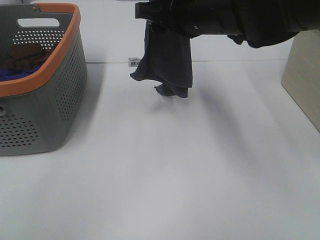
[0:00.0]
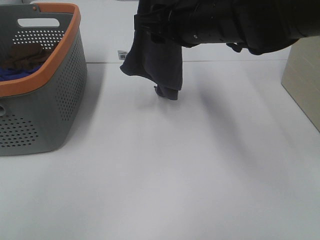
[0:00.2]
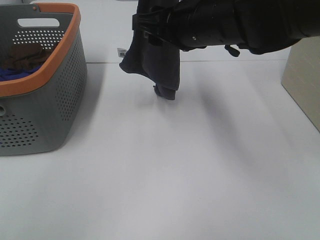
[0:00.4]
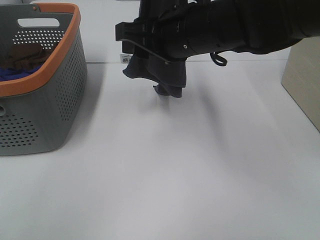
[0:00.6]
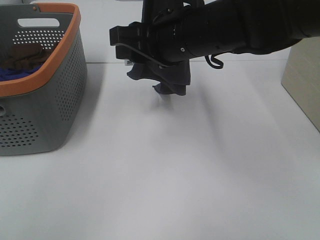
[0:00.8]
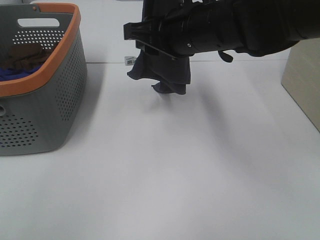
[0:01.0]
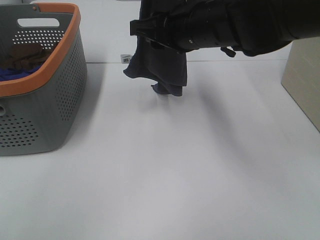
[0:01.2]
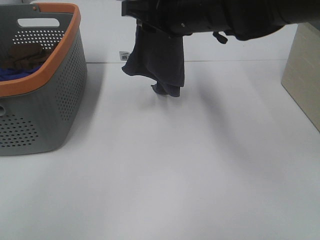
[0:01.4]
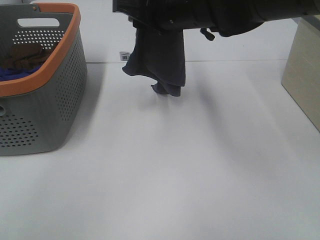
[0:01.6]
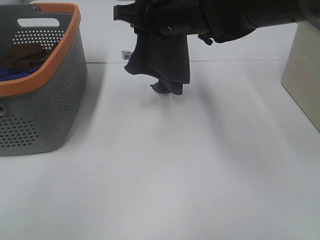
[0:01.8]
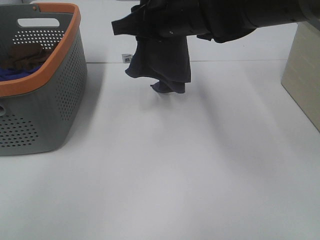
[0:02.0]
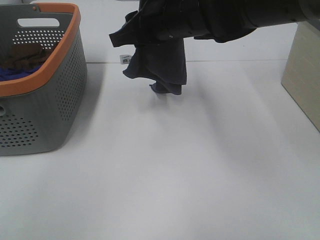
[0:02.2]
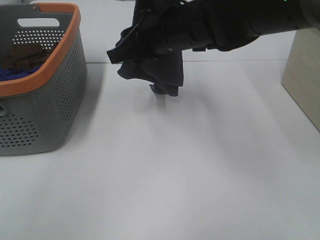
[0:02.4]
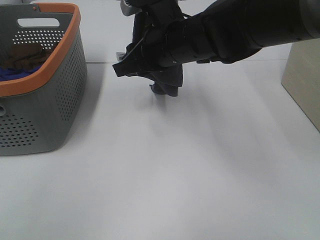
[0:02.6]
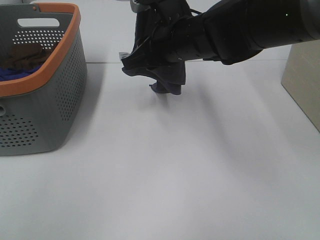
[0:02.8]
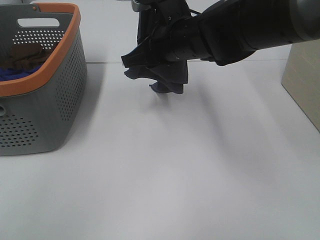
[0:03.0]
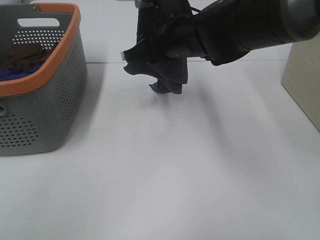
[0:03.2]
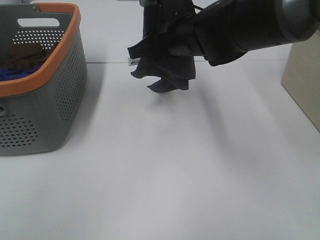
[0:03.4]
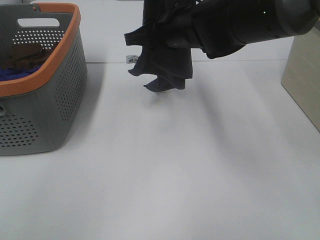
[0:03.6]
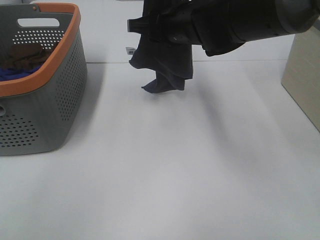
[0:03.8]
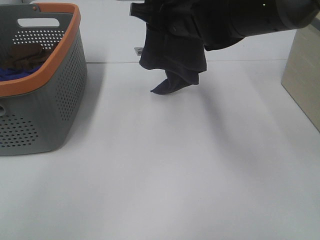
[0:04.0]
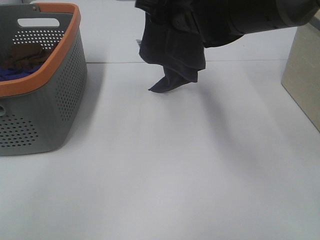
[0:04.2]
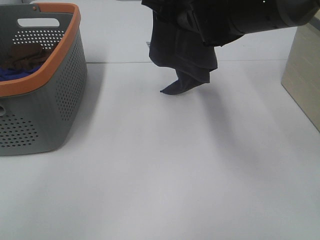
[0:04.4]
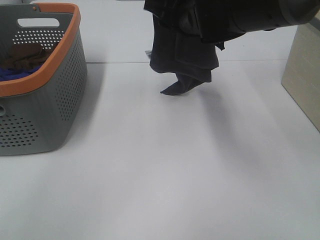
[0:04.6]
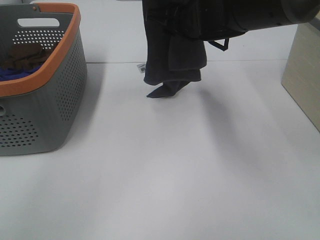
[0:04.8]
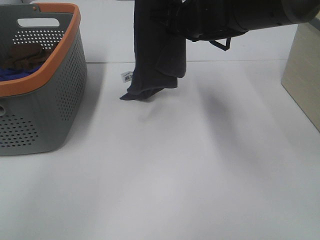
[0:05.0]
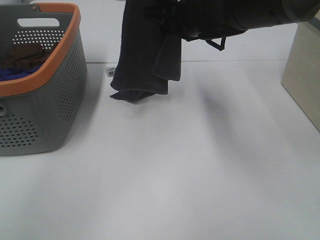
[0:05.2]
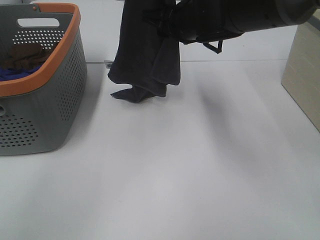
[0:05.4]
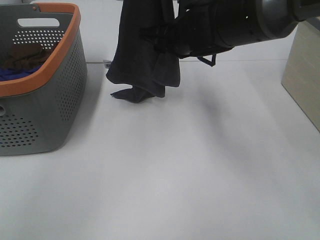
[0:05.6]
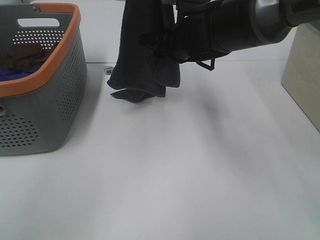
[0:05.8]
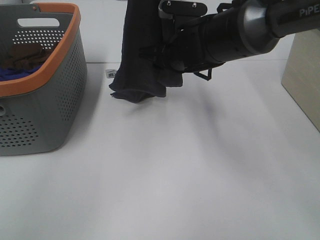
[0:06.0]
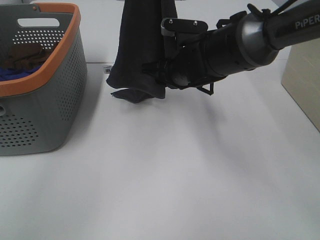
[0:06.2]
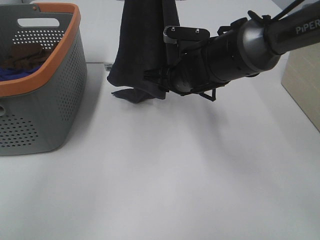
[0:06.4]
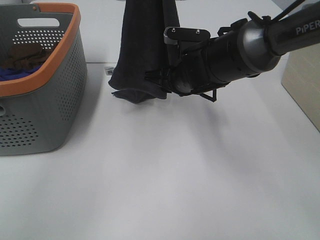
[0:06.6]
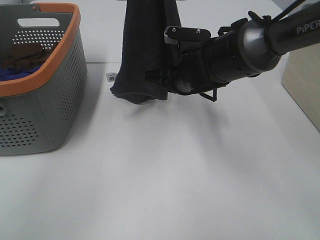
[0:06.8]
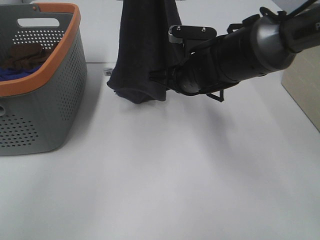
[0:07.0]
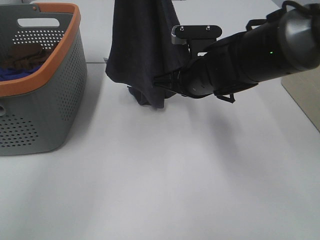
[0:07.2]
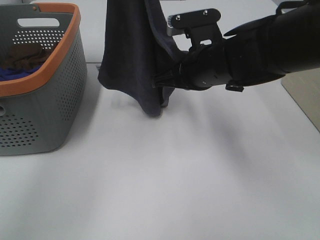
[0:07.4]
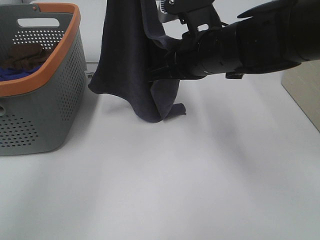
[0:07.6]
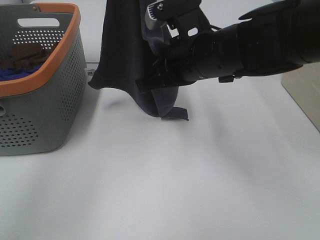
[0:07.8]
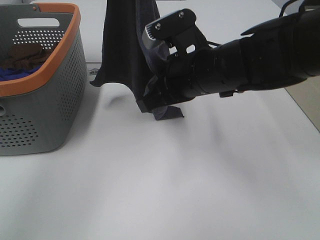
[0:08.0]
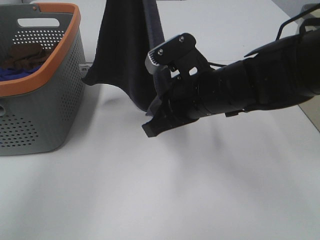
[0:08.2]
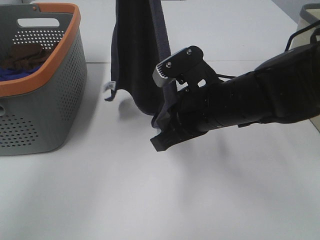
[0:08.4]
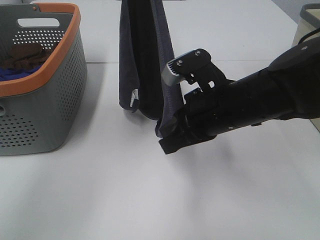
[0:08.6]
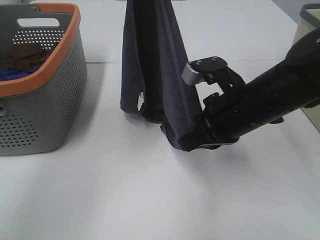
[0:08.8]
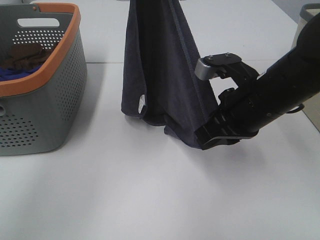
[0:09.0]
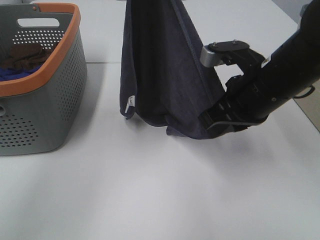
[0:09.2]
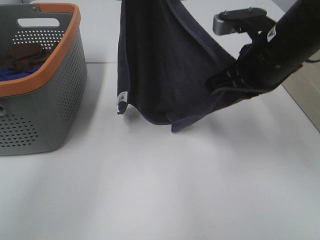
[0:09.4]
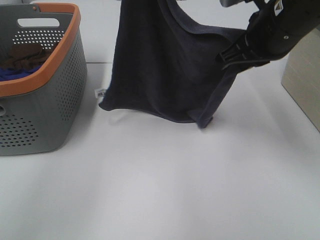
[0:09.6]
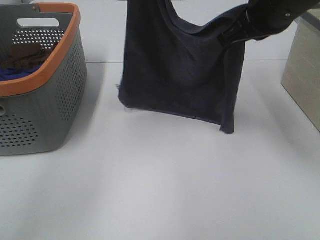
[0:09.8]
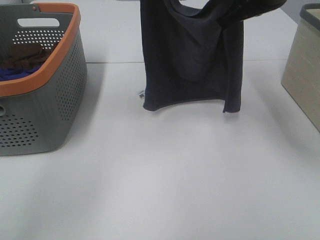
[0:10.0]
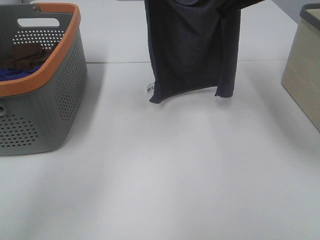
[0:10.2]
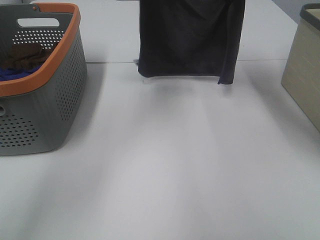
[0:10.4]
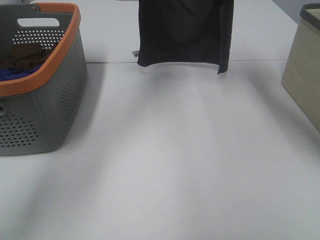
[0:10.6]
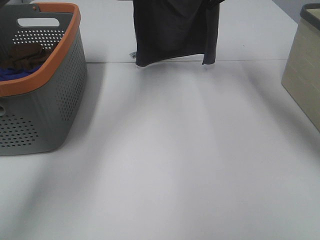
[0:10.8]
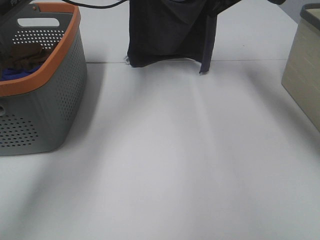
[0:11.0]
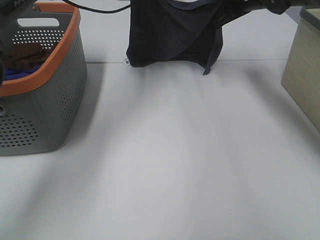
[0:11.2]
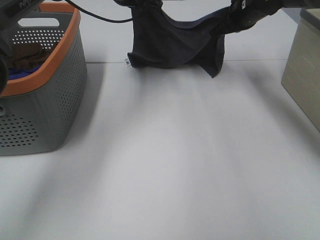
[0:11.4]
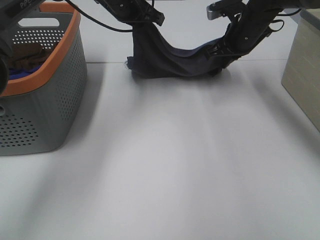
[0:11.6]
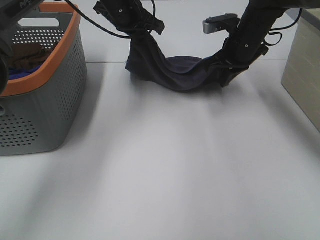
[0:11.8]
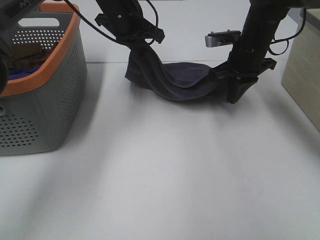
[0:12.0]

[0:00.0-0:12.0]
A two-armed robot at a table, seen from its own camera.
Task of the whole recording: Remove the towel and place it.
Step, 0.0 to 6.0 s: Right hand: grab a corner of the grey towel and straighten it.
Step, 6.2 to 8.0 s: Right hand: spread the grey towel flat on the table.
Step, 6.2 to 8.8 s: Left hand: spread the grey towel flat on the table.
4.4 to 6.0 s: The right gripper shifts approximately 5 cm downward.
6.0 to 7.6 s: The right gripper is displaced backward by about 10 cm, and closes.
7.6 to 9.0 s: The right gripper moves to the right and backward, approximately 10 cm.
9.0 to 10.4 s: The right gripper heads forward and upward, covering some 20 cm. Meanwhile the left gripper goes about 10 cm forward and downward.
10.4 to 12.0 s: Both grippers travel together downward, approximately 15 cm.

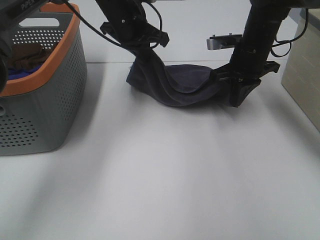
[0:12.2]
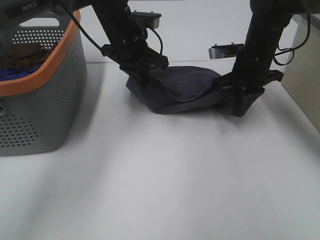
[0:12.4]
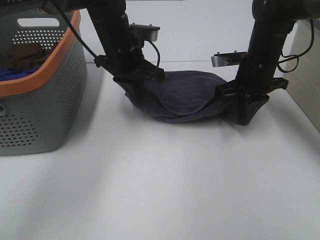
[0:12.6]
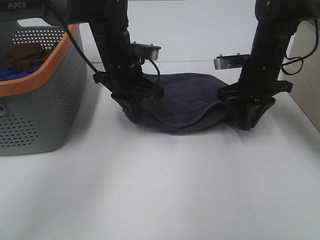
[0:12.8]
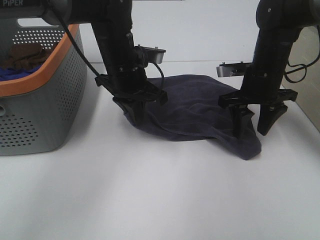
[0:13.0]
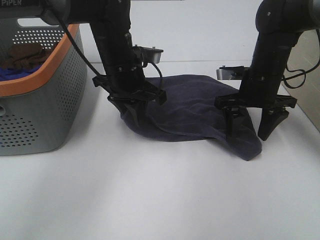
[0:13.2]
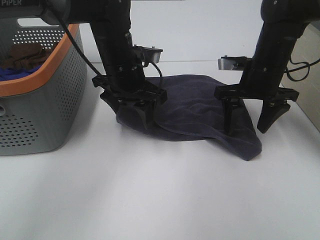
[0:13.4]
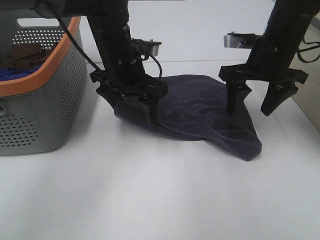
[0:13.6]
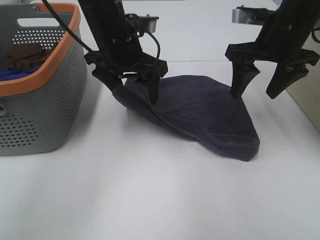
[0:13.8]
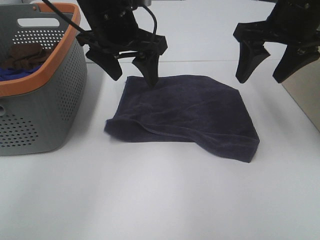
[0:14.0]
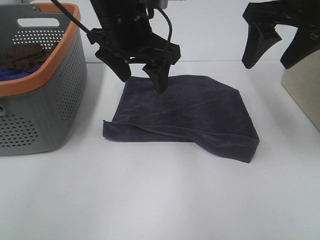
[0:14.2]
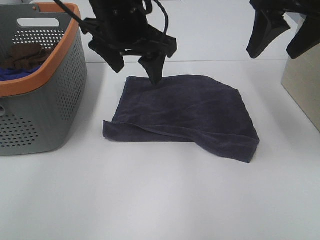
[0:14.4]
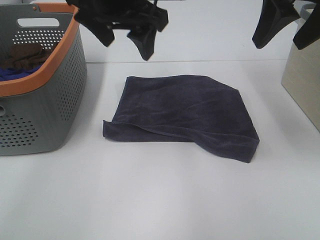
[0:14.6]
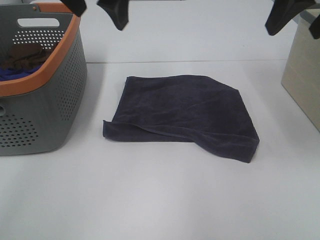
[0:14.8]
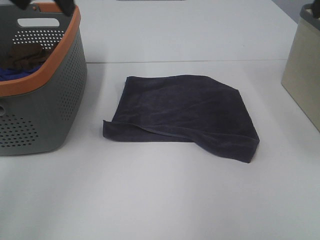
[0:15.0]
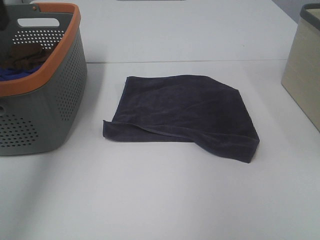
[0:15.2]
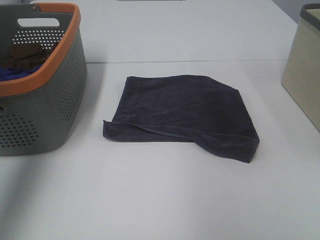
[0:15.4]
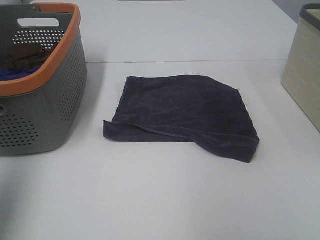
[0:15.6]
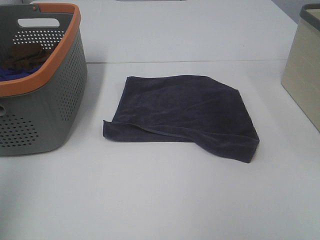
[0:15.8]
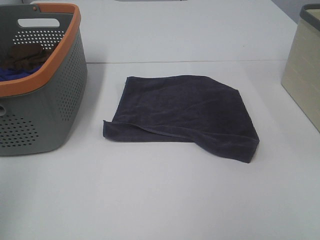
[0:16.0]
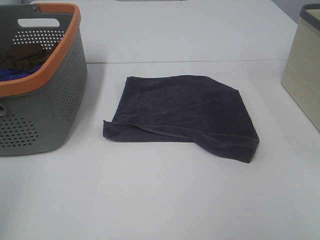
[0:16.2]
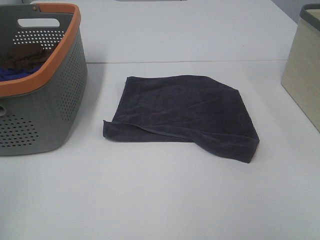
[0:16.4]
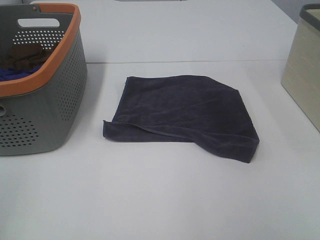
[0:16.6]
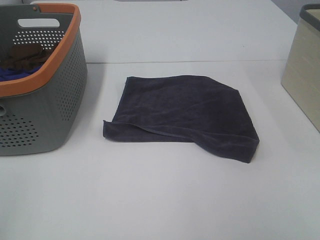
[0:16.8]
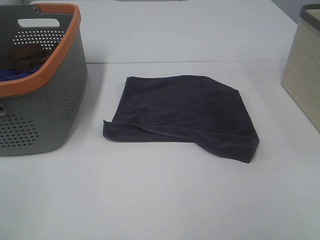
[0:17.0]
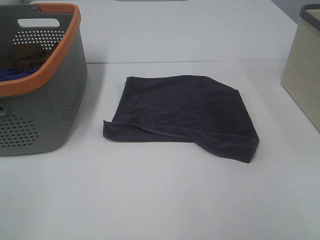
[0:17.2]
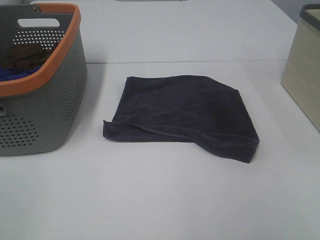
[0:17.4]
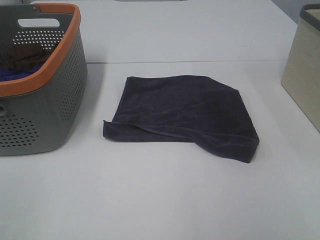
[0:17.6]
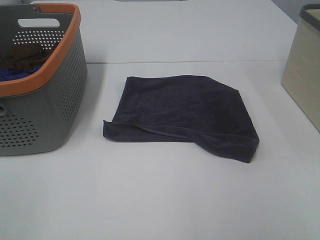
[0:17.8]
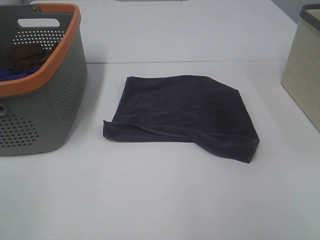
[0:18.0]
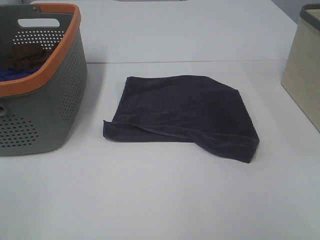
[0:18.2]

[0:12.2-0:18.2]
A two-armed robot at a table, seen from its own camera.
Task of the whole recording: Remove the towel and place it.
12.2 to 13.8 s: The left gripper goes about 10 cm backward, and opens its fingers; the right gripper travels upward and backward by some 10 cm, and opens its fingers.
13.8 to 15.2 s: The left gripper shifts some 25 cm to the left and upward; the right gripper goes roughly 20 cm upward, to the right and backward.
15.2 to 16.6 s: The left gripper moves backward, some 30 cm.

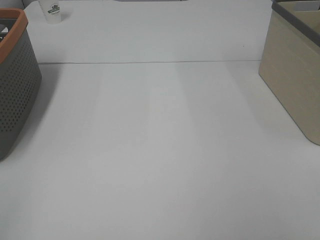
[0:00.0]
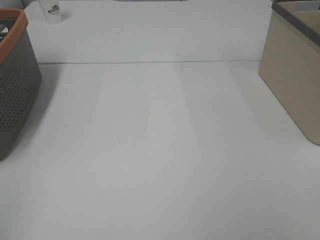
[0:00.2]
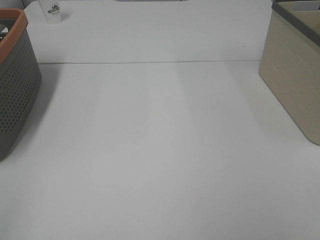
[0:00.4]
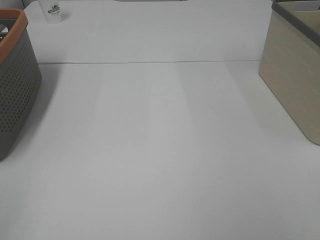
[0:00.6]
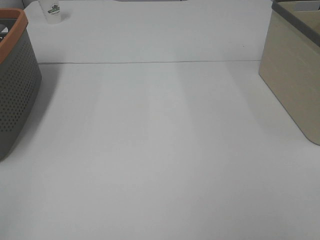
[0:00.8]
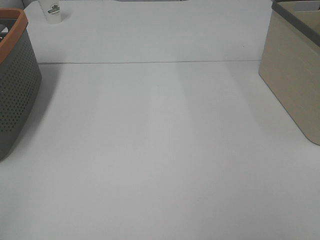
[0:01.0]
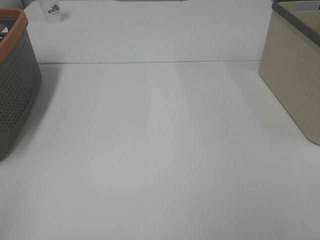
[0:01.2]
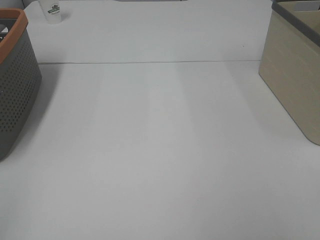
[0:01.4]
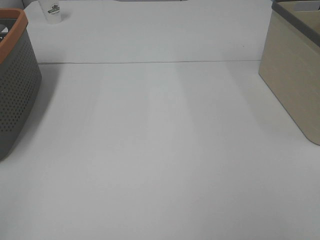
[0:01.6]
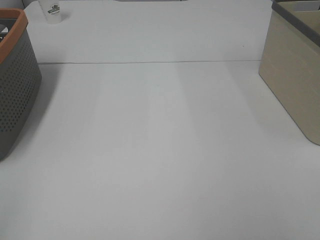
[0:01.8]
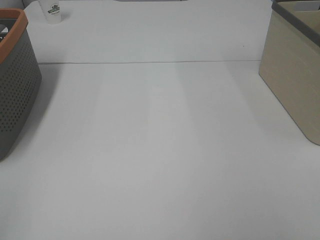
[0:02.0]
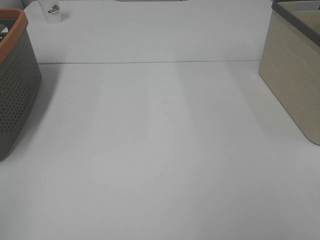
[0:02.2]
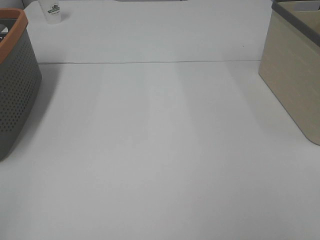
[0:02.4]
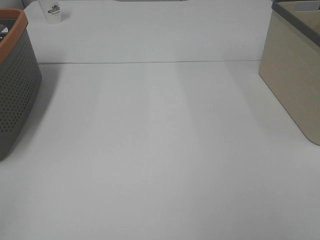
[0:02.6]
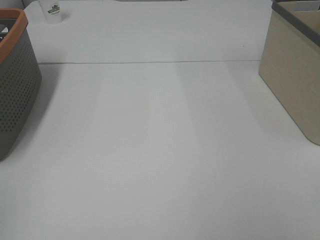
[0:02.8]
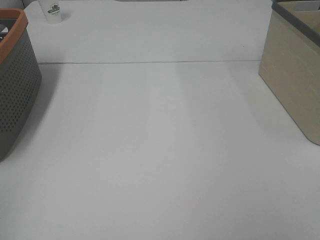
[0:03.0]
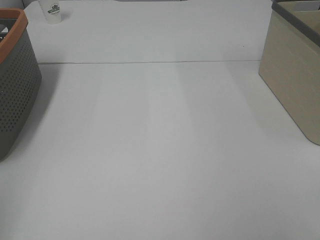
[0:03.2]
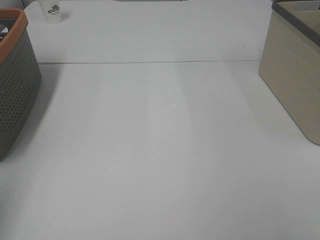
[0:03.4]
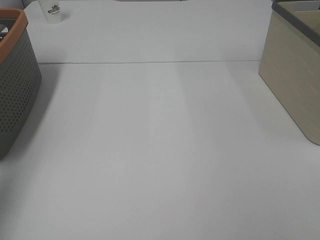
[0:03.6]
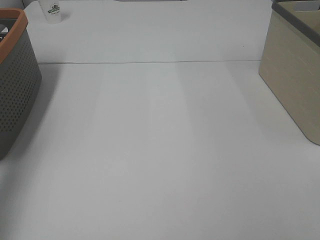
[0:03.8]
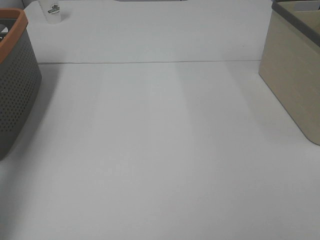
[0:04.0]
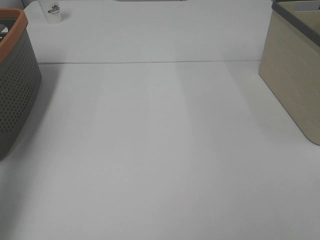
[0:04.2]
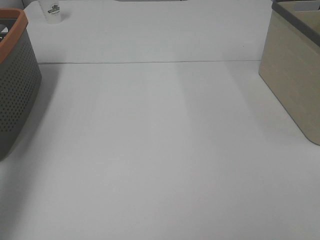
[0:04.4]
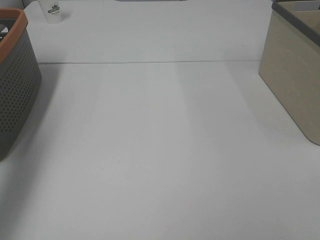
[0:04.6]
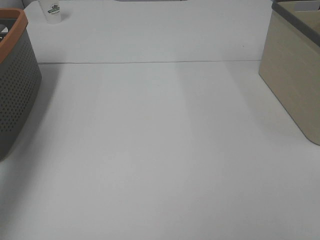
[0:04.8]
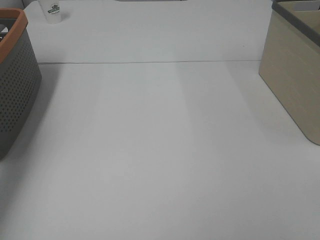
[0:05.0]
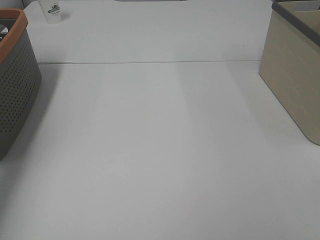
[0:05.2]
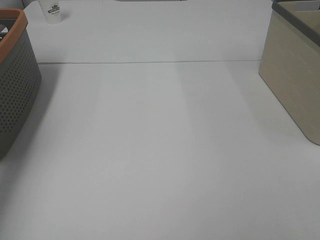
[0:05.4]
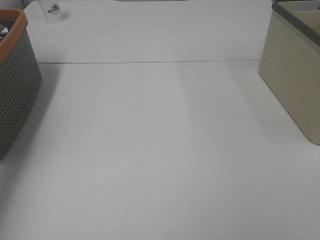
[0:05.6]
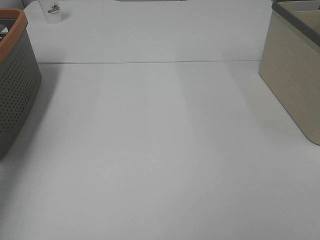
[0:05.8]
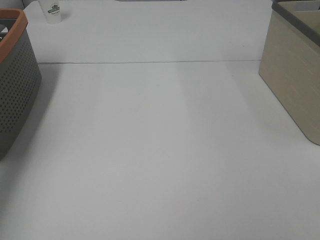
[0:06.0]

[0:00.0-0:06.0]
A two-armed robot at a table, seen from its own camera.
Task of the whole recording: Remove the towel and place it.
0.0 to 1.6 s: Both grippers stay put.
3.0 to 4.4 s: The left gripper heads forward, covering roughly 25 cm.
4.4 to 6.0 s: The left gripper moves forward and downward, roughly 10 cm, and closes up.
